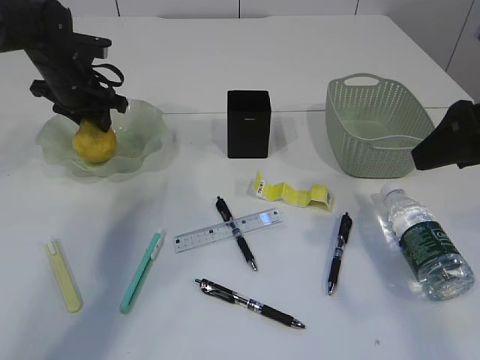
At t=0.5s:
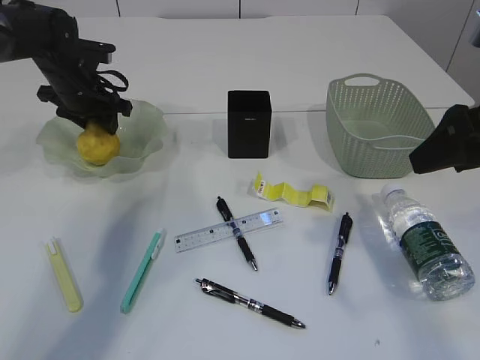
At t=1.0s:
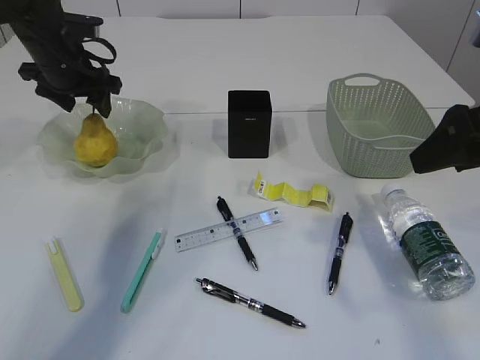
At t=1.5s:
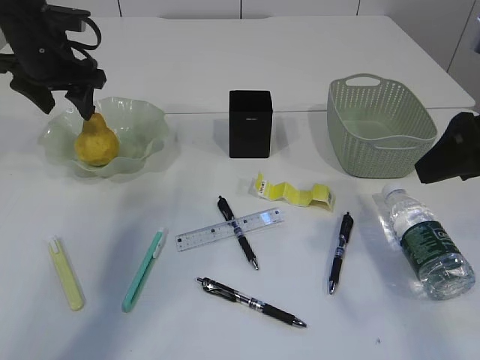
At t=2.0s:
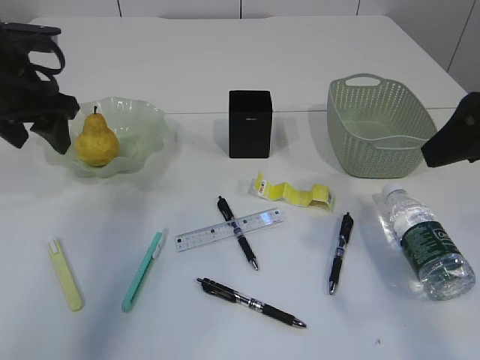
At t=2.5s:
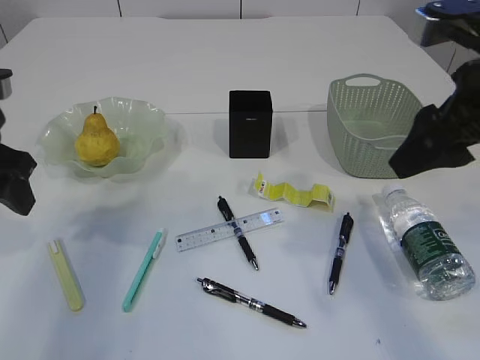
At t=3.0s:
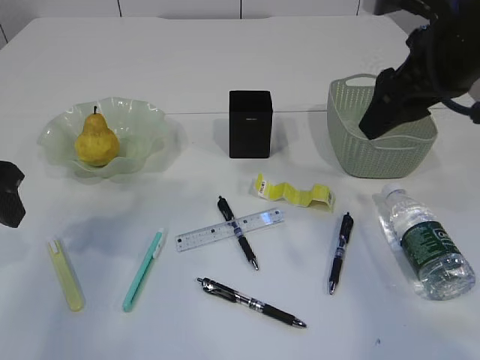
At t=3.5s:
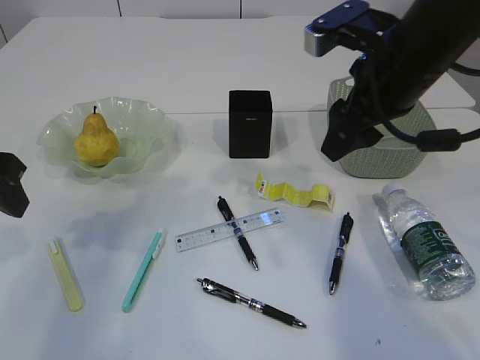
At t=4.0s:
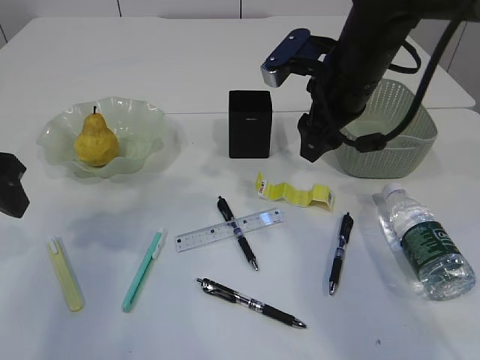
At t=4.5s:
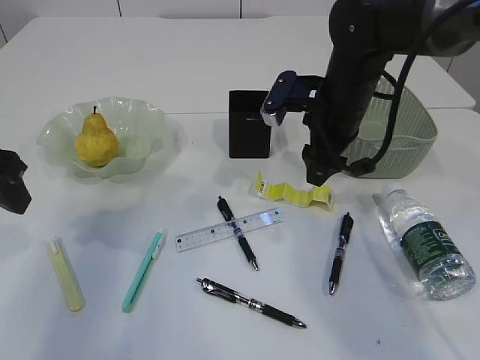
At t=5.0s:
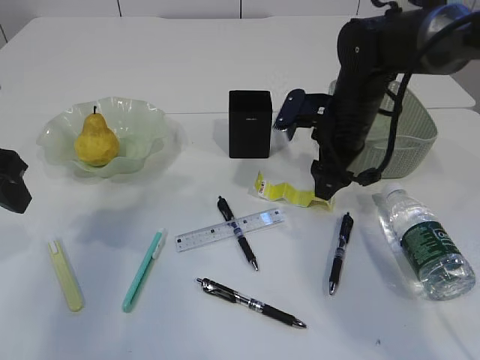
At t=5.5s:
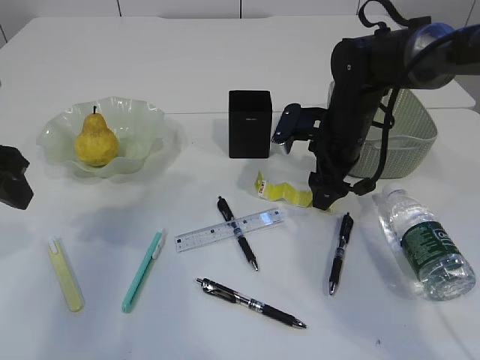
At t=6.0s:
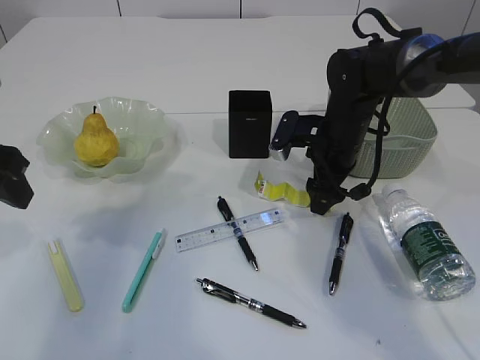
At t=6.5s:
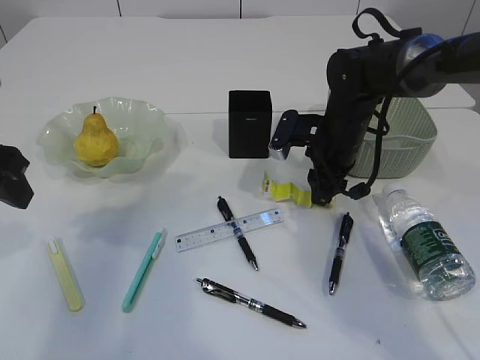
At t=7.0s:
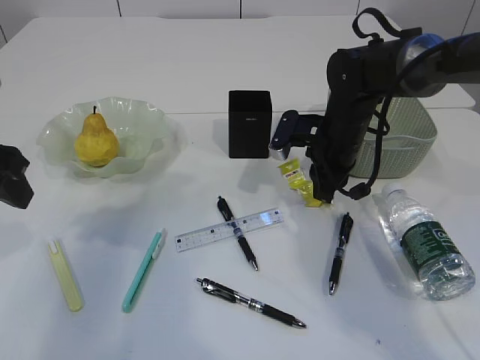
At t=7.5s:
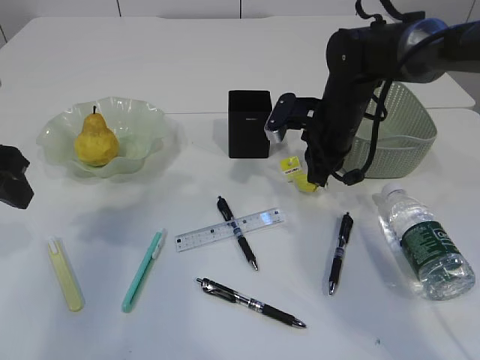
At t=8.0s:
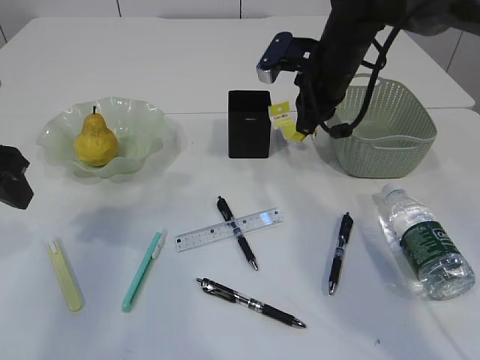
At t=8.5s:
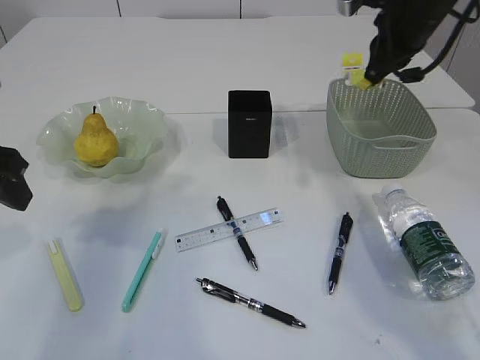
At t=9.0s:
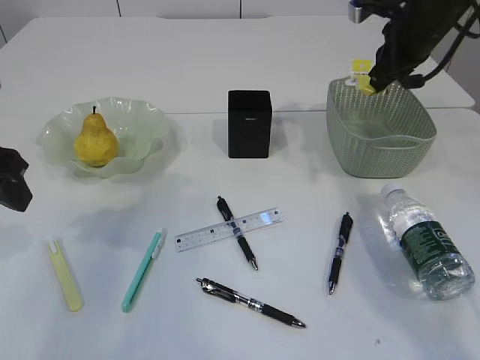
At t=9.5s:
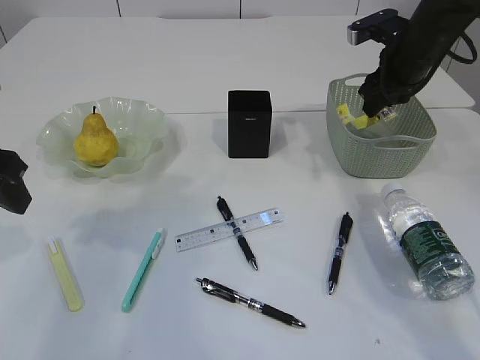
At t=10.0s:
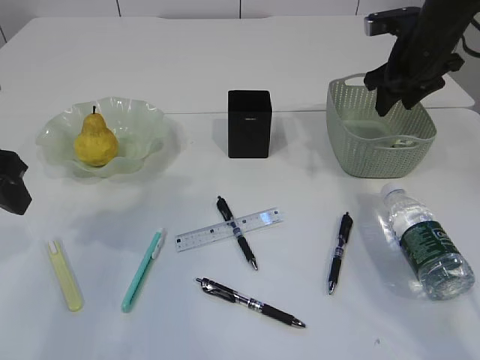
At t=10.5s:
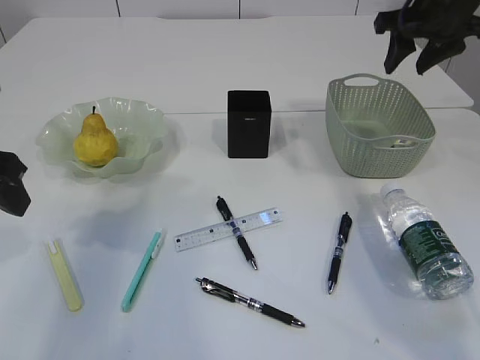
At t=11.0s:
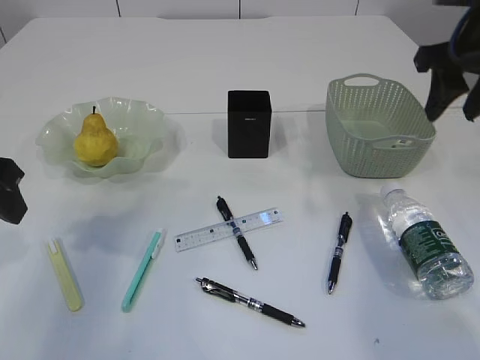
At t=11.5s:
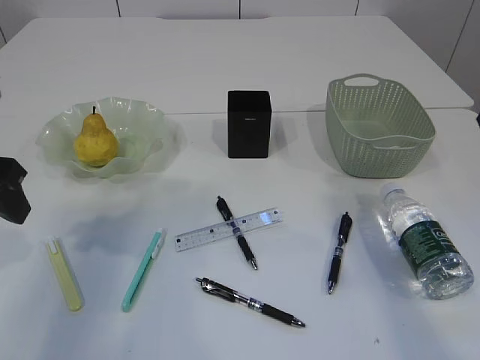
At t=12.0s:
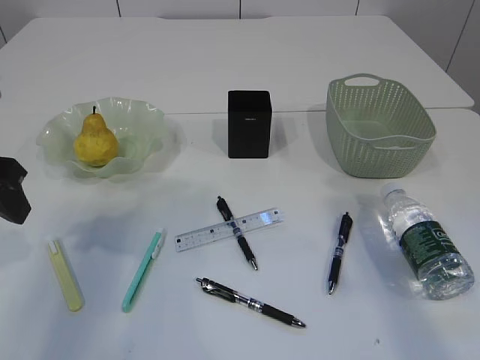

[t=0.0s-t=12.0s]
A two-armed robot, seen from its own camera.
Step, t=0.0s to t=1.5s: Place the pear in the plate.
Step, t=2.0s to t=7.5s: Pick up the waste paper.
Step, t=8.0s to t=10.5s: Place the waste paper in the basket.
t=0.0s to t=2.0s: The left gripper travels backward and upward by roughly 15 cm, and opens.
t=2.0s to t=4.0s: The left gripper moves backward, about 10 cm, while the right gripper shifts approximately 20 cm forward, to the left and downward.
t=4.0s to t=6.0s: The right gripper goes roughly 10 cm downward.
t=6.0s to t=8.0s: The right gripper shifts some 10 cm upward, and closes.
t=8.0s to t=10.0s: The right gripper goes approximately 15 cm to the right, and opens.
t=10.0s to t=12.0s: The right gripper heads backward, covering approximately 25 cm.

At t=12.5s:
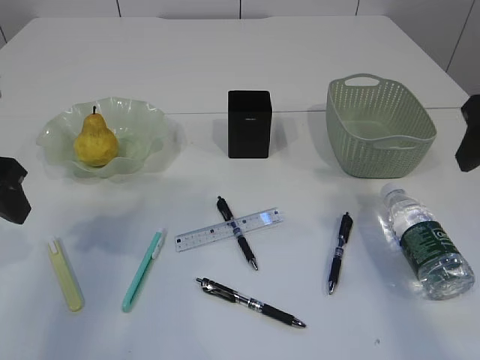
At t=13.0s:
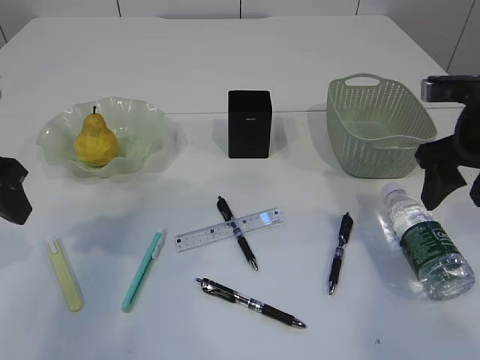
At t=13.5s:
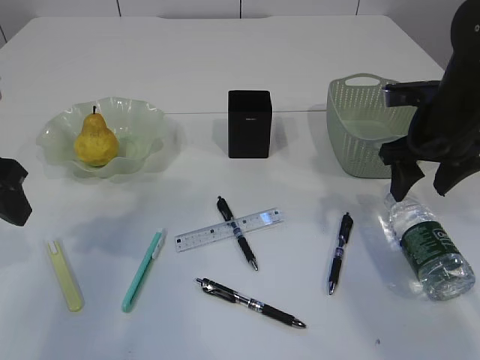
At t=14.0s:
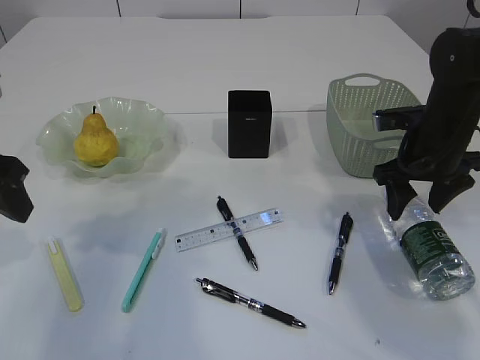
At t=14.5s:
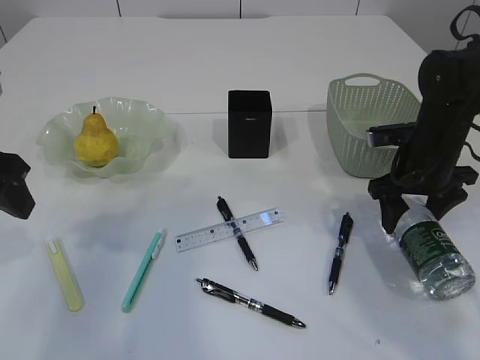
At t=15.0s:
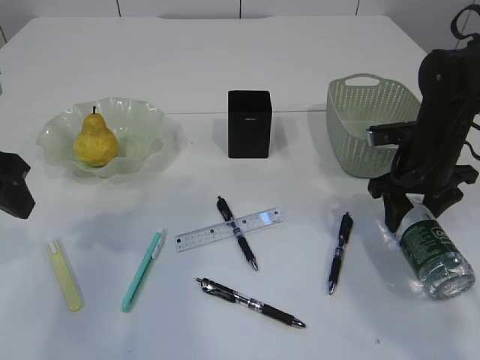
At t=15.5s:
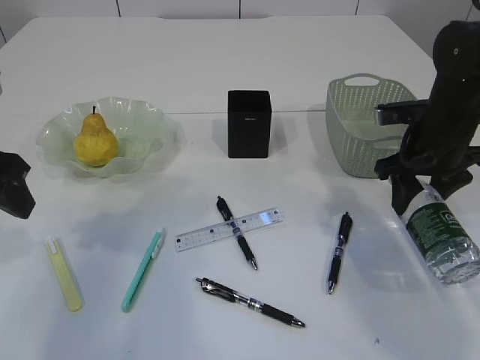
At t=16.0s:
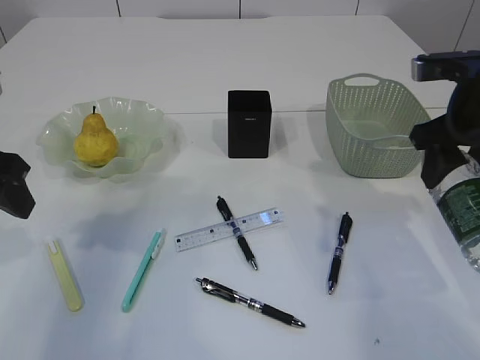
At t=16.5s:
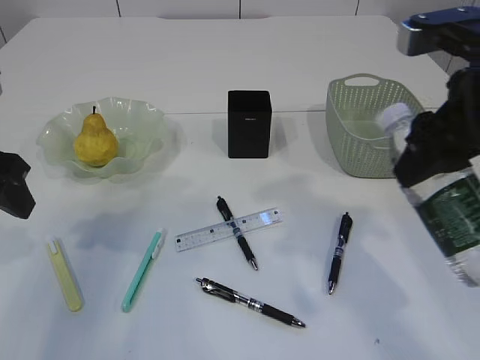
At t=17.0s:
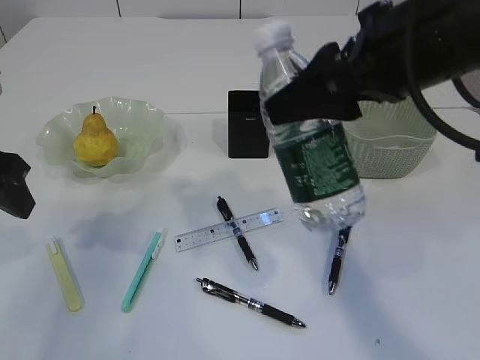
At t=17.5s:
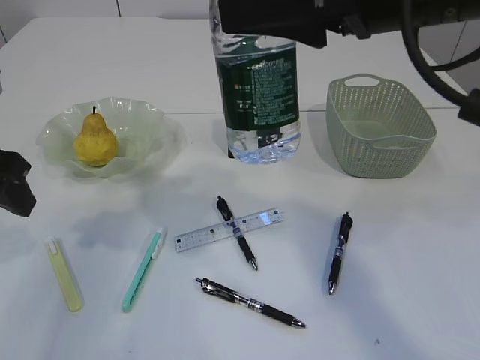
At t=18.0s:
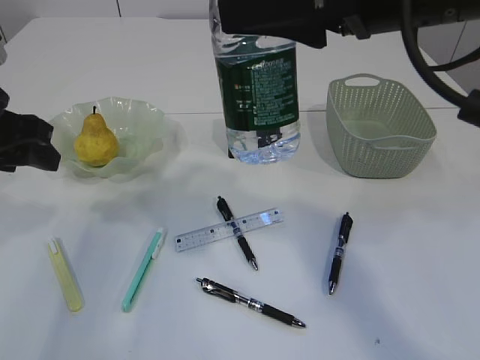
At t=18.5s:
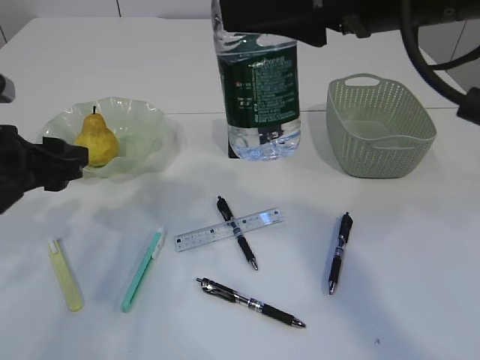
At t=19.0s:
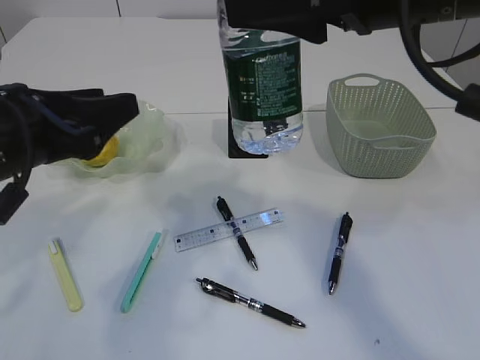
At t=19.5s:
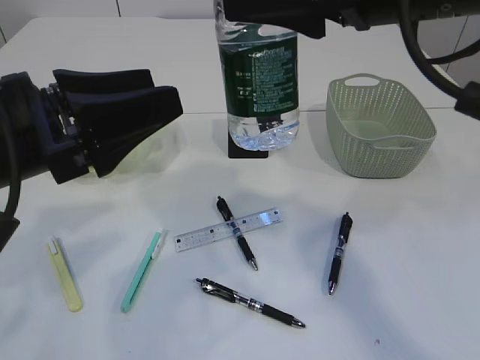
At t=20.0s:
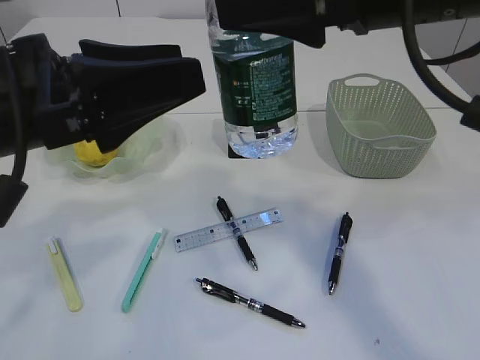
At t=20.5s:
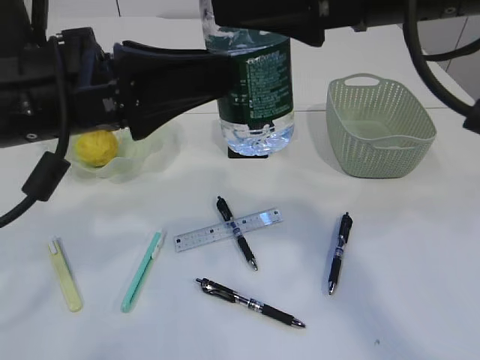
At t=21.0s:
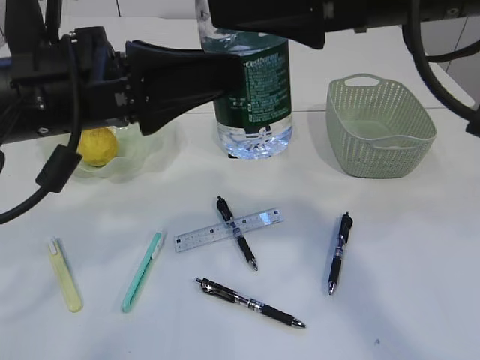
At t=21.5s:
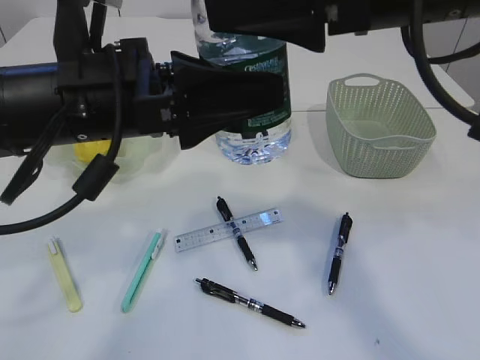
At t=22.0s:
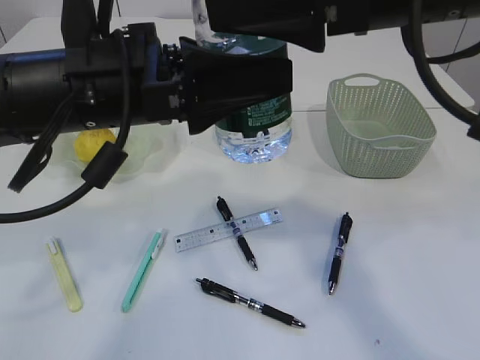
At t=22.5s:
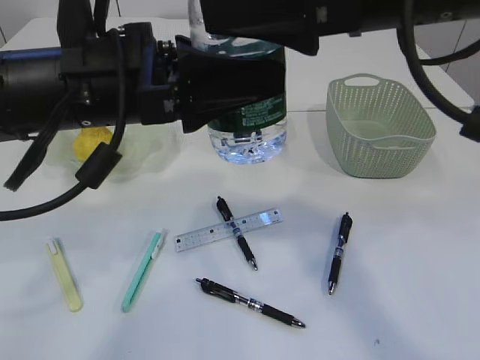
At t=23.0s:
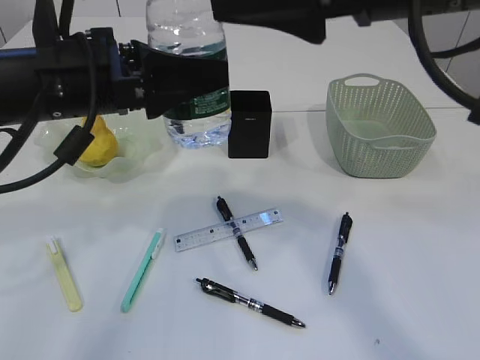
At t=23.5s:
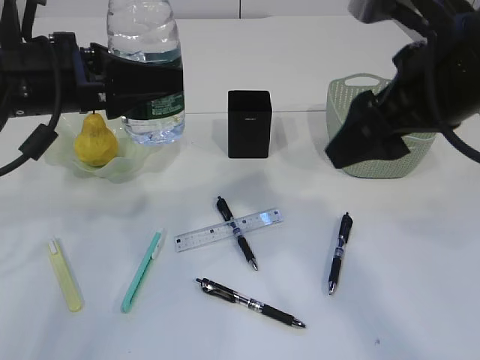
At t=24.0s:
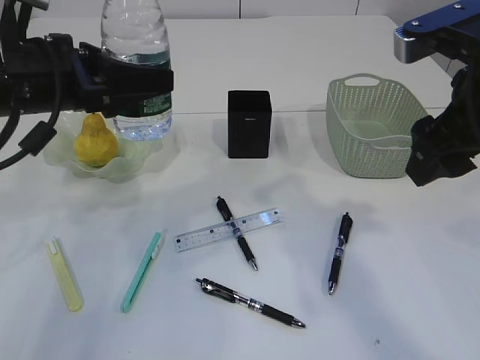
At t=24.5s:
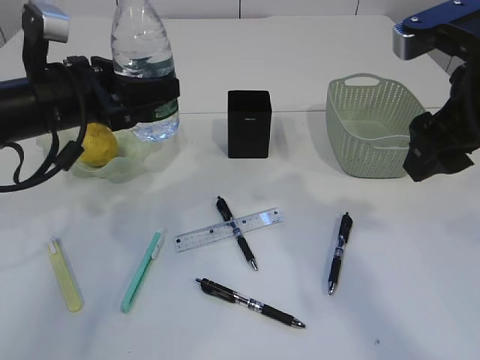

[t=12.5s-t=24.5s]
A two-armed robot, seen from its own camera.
Step, t=12.5s to t=16.0s: Pick up the bottle with the right arm.
Step, t=16.5s to t=23.0s: transfer the bottle to the left arm.
t=12.5s to t=14.5s: The right gripper shifts about 20 cm downward and forward.
t=14.5s to t=16.5s: The right gripper moves upward and backward, roughly 20 cm.
t=16.5s to t=18.5s: The right gripper moves to the left and upward, some 10 cm. The left gripper ends up about 5 cm from where it was.
t=18.5s to t=20.5s: The left gripper goes roughly 15 cm to the right and upward.
t=20.5s to t=22.5s: The grippers move only a little.
t=22.5s to t=24.5s: The right gripper heads to the right and downward, covering some 10 cm; the left gripper travels to the left, forward and downward by about 15 cm.

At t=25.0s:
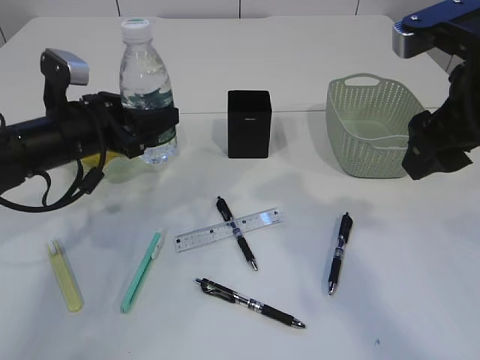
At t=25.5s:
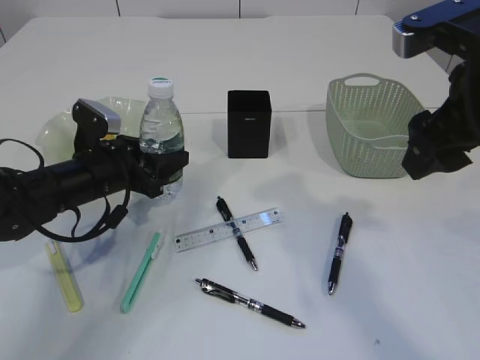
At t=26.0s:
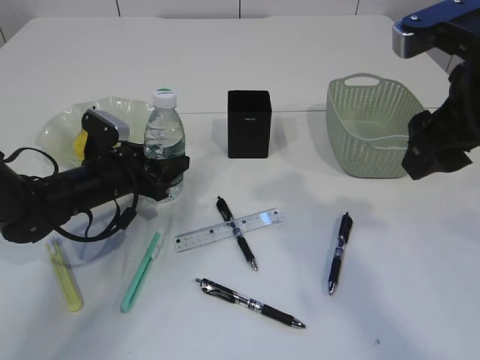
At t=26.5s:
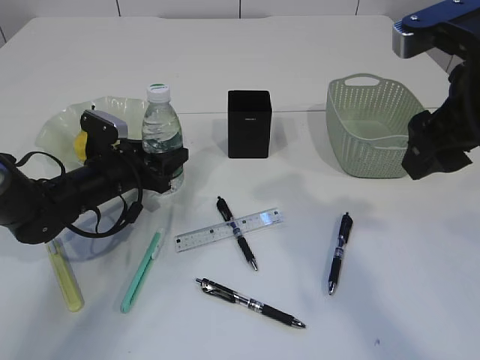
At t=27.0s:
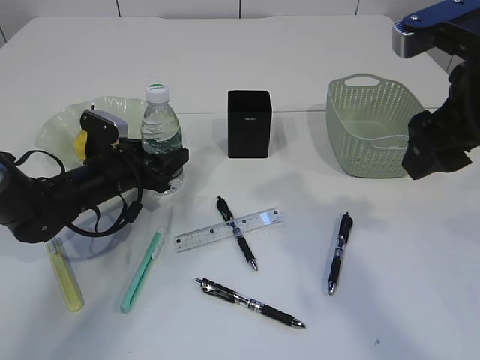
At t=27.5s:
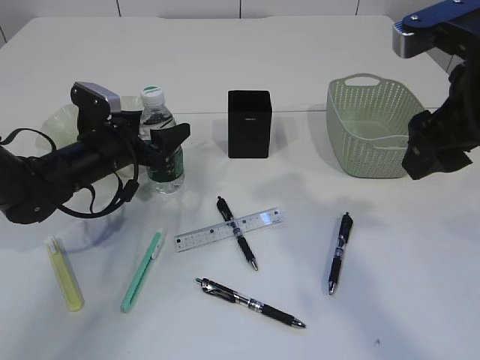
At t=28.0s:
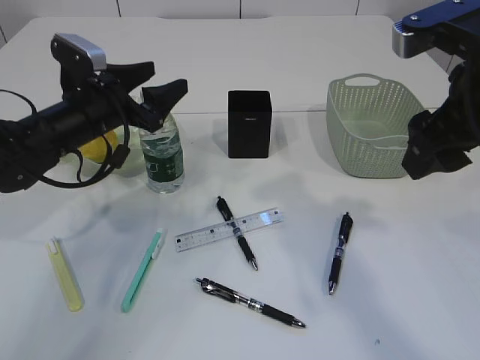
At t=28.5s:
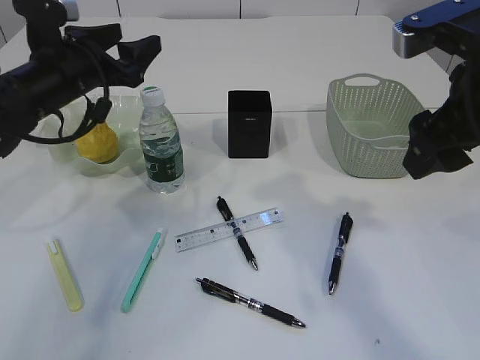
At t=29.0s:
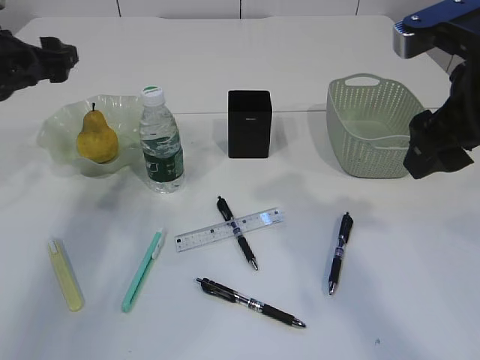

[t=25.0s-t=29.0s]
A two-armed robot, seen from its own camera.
Step, t=25.0s to t=28.0s: Place the bottle.
t=25.0s to t=27.0s: The left gripper is displaced downward by roughly 10 cm.
t=27.0s to t=29.0s: The left gripper travels upward and to the left by roughly 20 cm.
